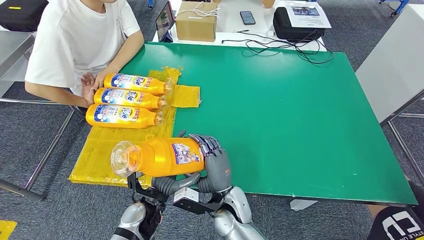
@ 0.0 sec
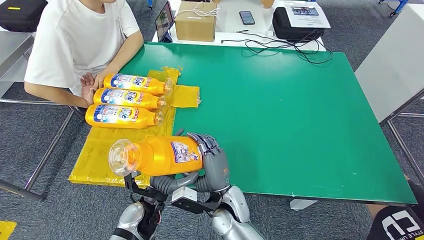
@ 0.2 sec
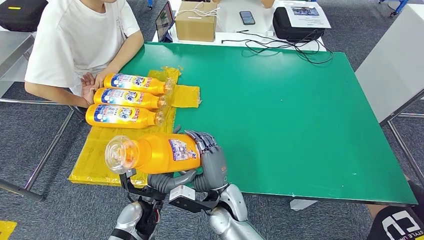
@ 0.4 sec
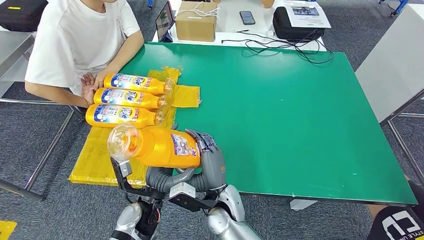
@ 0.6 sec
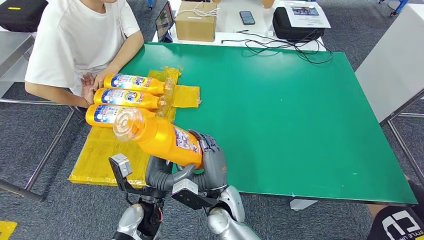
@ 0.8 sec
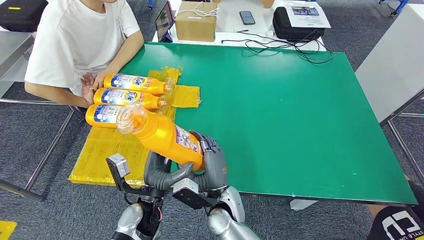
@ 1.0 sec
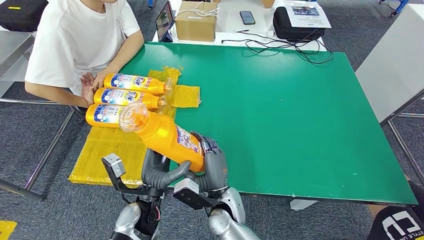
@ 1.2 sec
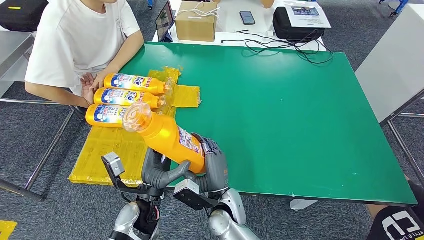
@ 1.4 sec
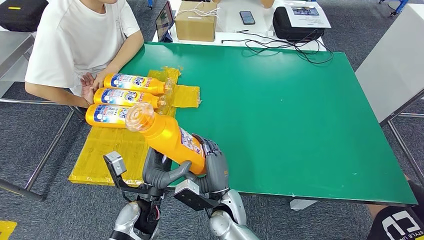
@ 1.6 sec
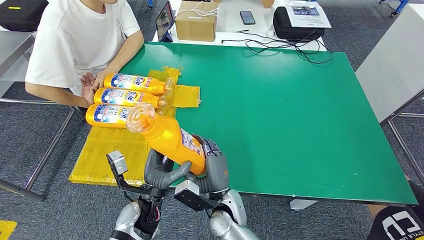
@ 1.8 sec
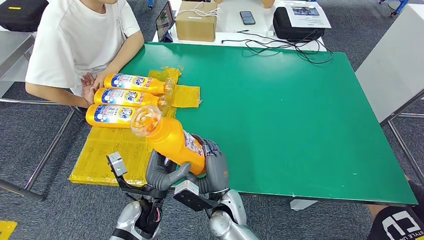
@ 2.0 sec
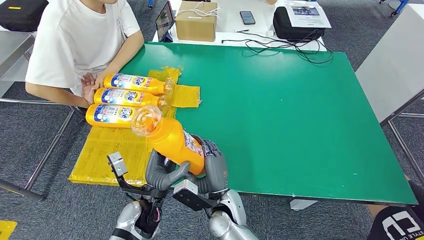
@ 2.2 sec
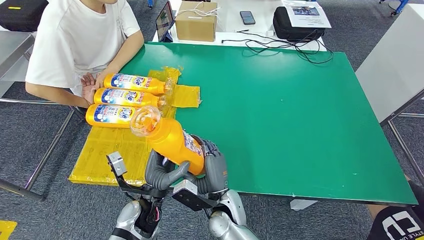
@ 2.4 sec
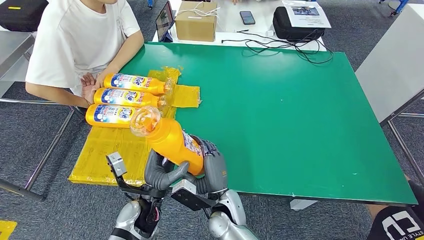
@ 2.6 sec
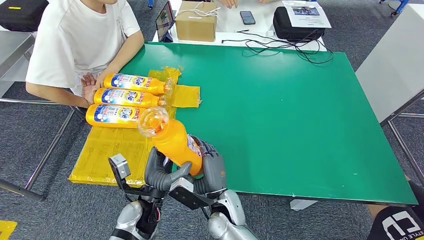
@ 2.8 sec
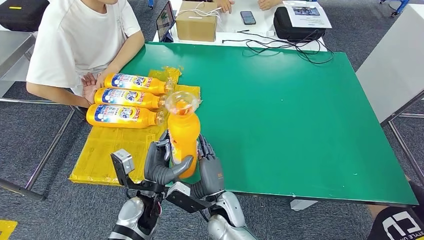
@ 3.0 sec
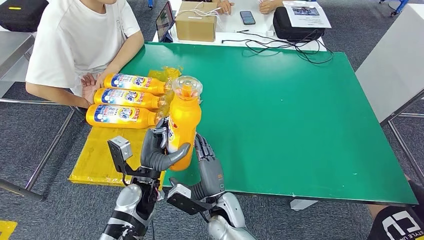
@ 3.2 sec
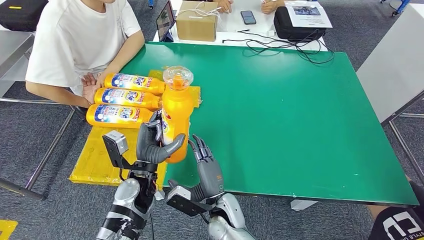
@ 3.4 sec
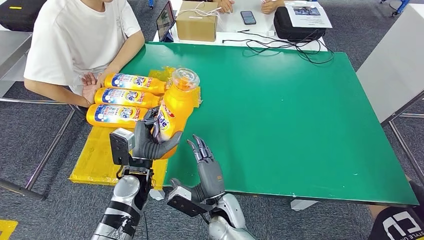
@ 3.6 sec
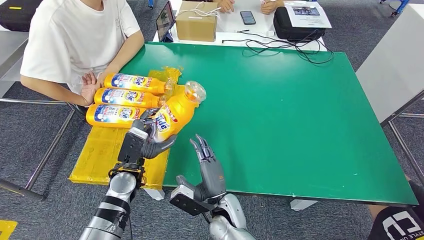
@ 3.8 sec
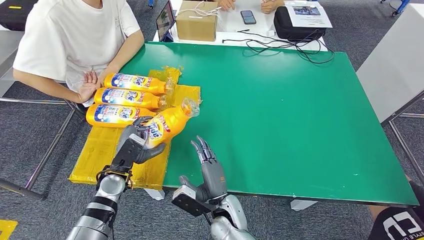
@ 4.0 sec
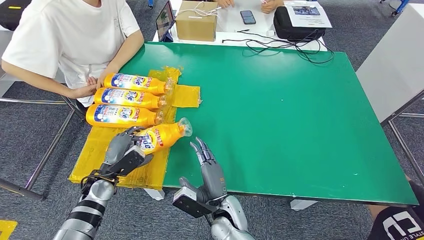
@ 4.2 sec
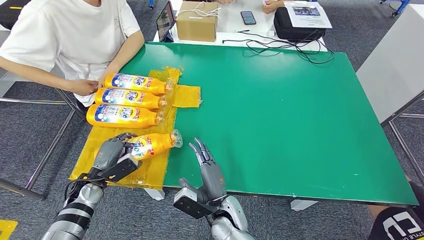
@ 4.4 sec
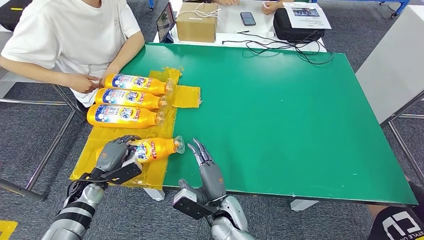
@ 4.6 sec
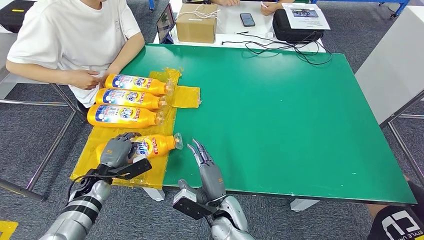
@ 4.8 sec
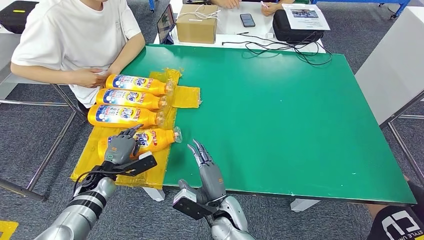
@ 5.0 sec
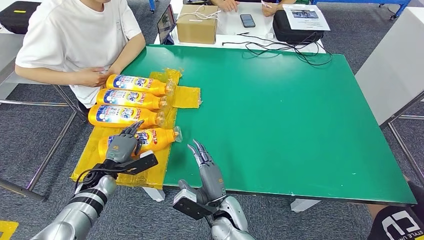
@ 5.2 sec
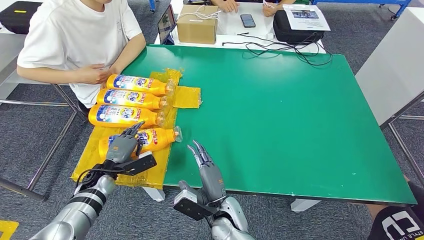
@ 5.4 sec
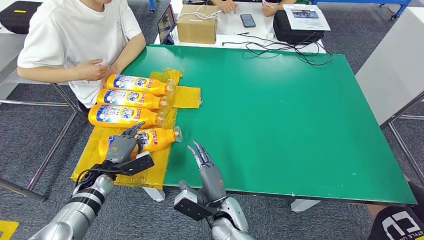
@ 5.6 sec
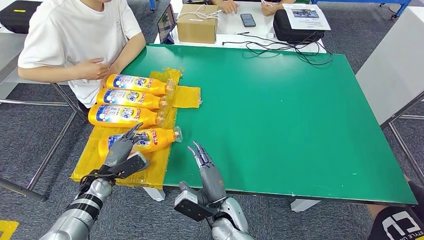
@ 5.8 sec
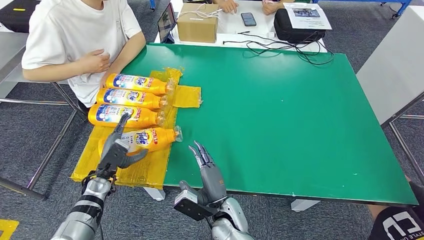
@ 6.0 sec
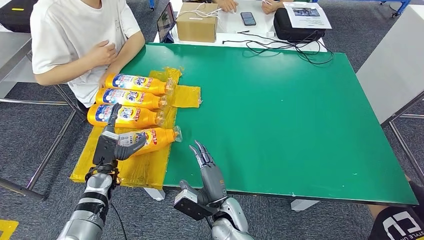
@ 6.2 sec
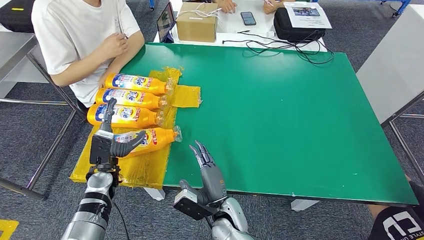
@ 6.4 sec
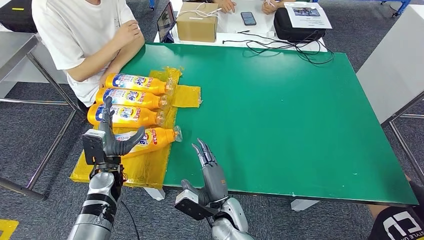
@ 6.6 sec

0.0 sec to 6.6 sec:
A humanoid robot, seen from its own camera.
Step, 0.0 sec to 6.6 sec: Flip the fast-moving consumer goods bottle to the front side.
0.0 sec to 3.2 sec: The hands move only a little.

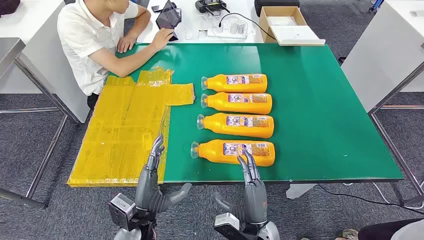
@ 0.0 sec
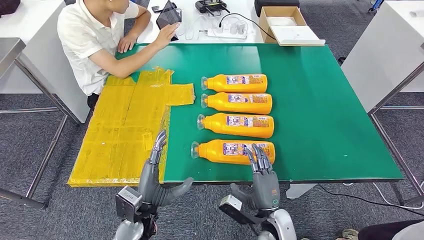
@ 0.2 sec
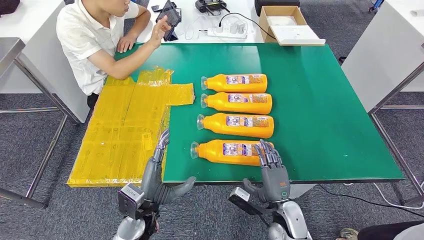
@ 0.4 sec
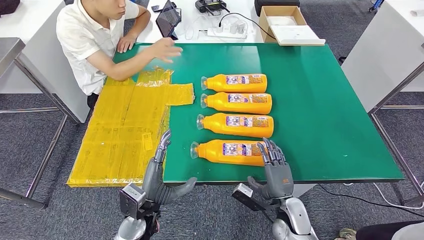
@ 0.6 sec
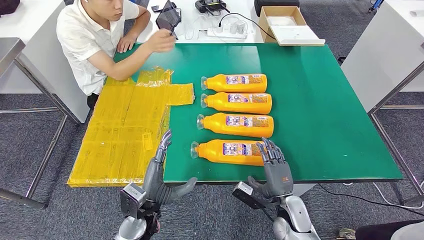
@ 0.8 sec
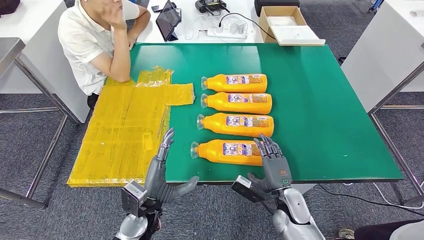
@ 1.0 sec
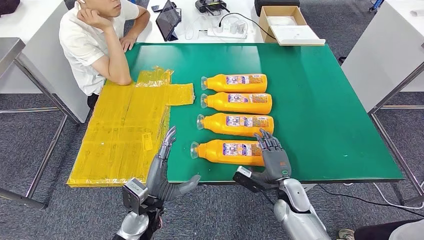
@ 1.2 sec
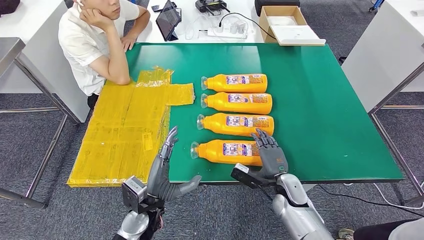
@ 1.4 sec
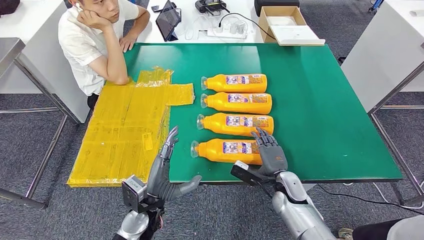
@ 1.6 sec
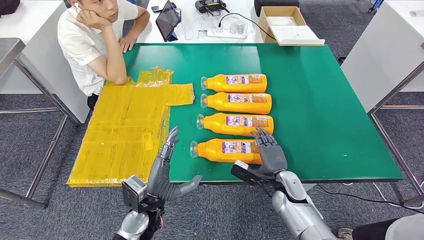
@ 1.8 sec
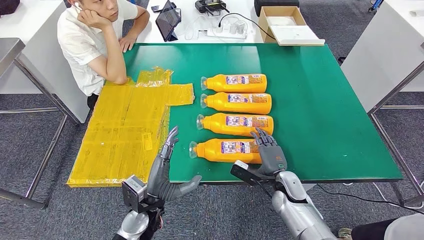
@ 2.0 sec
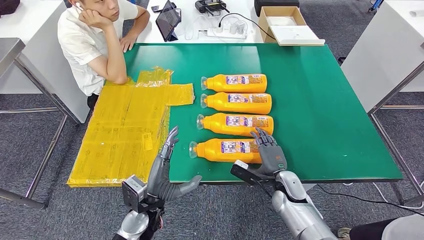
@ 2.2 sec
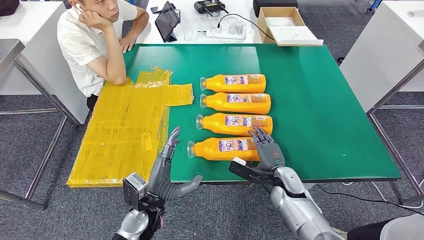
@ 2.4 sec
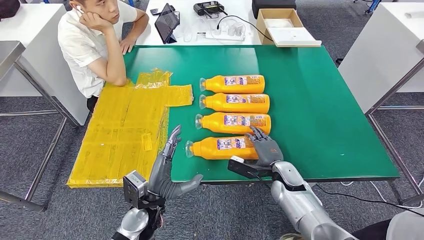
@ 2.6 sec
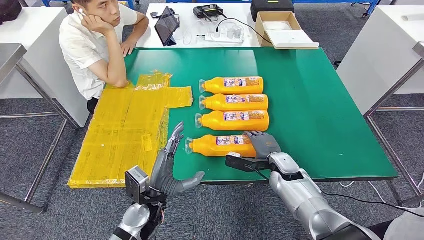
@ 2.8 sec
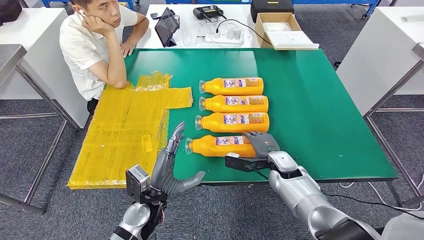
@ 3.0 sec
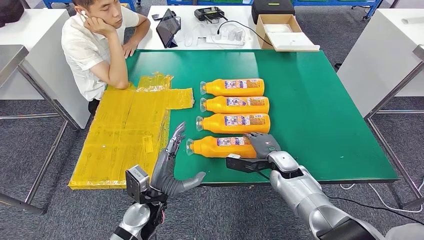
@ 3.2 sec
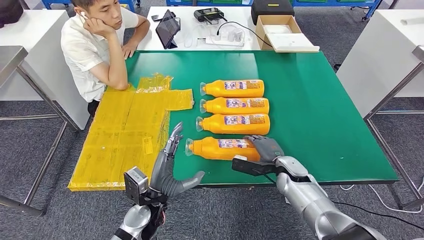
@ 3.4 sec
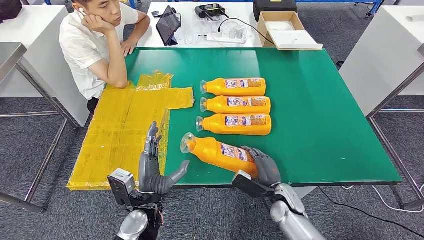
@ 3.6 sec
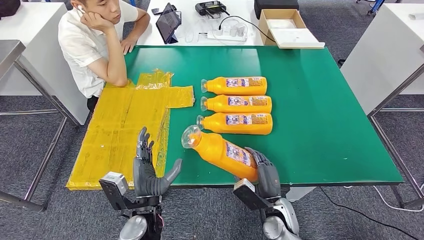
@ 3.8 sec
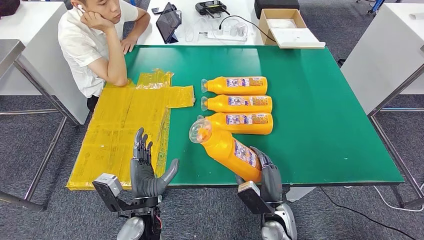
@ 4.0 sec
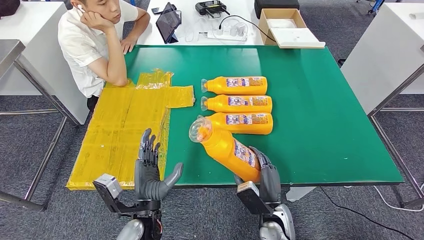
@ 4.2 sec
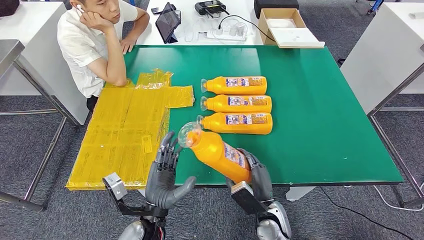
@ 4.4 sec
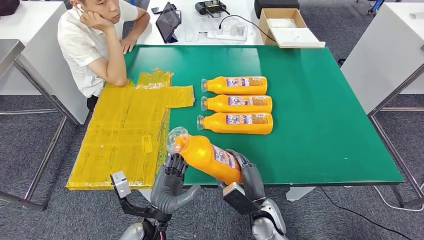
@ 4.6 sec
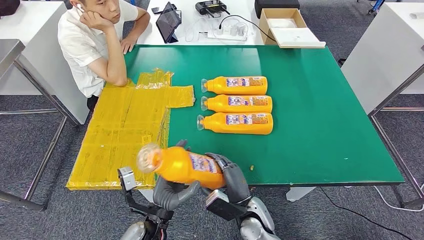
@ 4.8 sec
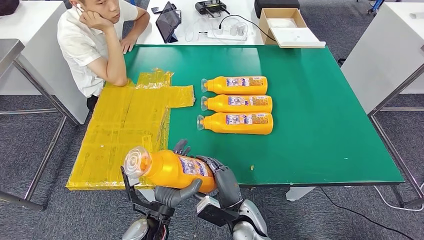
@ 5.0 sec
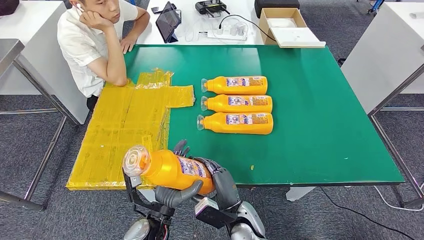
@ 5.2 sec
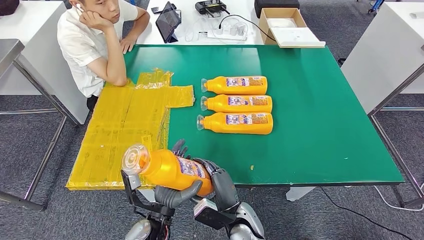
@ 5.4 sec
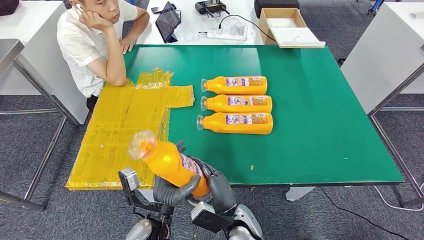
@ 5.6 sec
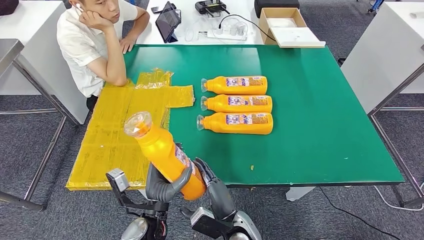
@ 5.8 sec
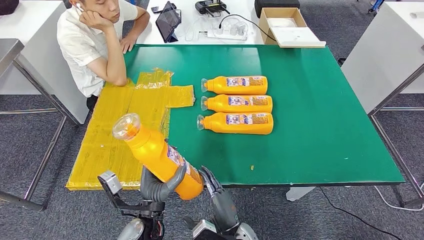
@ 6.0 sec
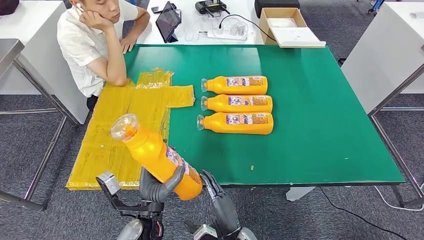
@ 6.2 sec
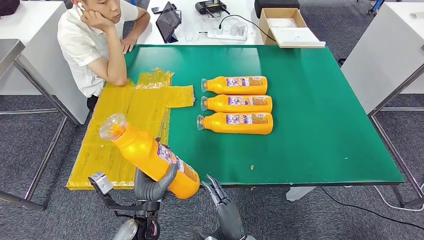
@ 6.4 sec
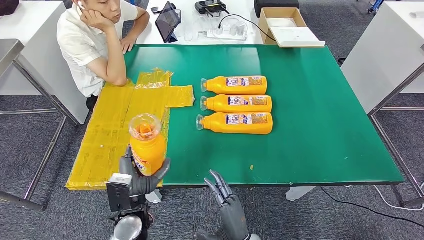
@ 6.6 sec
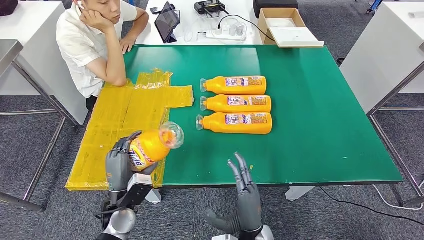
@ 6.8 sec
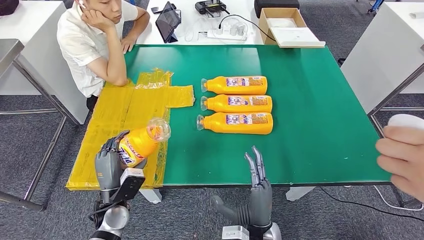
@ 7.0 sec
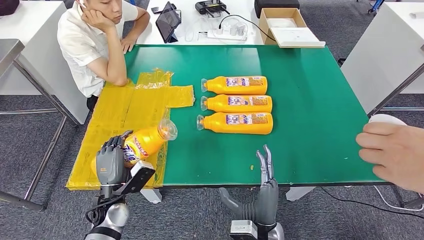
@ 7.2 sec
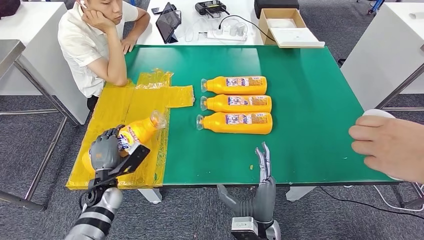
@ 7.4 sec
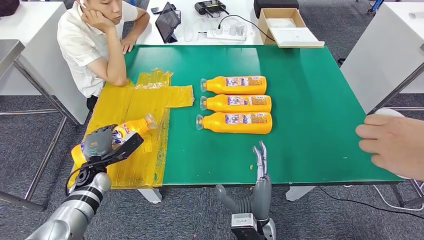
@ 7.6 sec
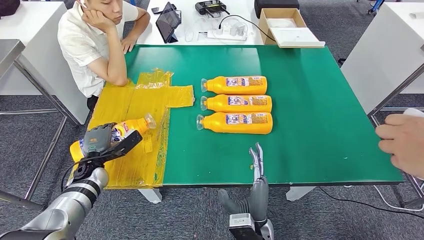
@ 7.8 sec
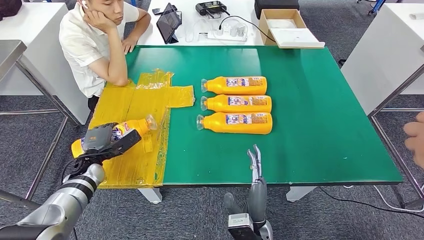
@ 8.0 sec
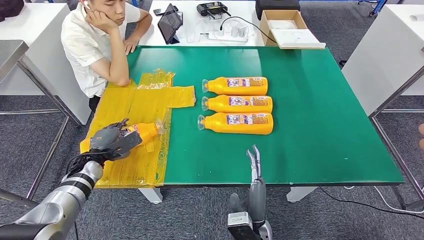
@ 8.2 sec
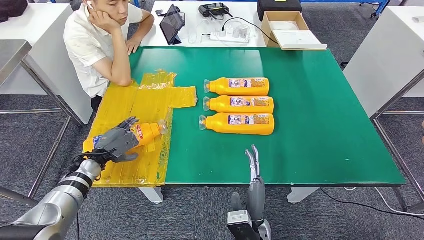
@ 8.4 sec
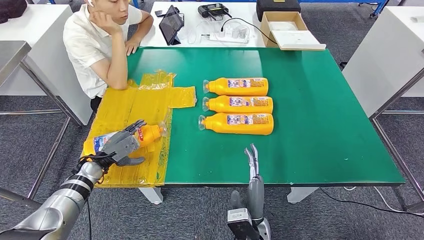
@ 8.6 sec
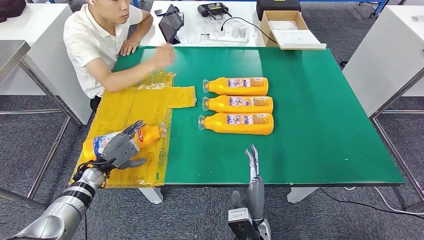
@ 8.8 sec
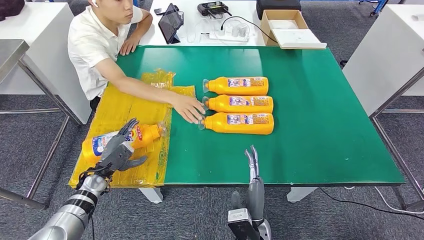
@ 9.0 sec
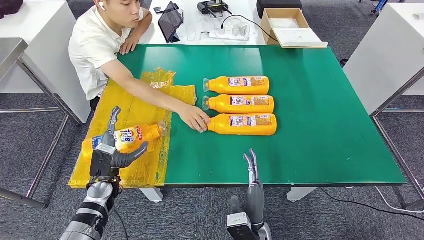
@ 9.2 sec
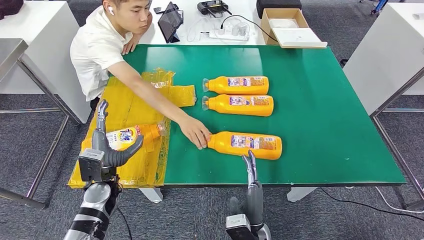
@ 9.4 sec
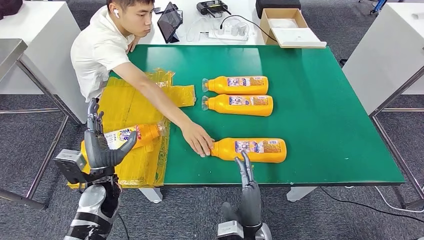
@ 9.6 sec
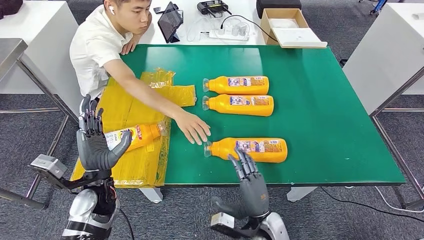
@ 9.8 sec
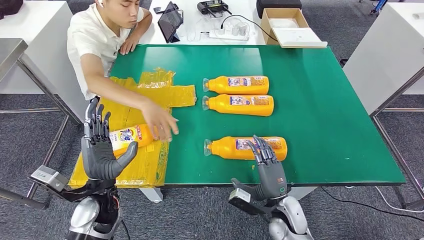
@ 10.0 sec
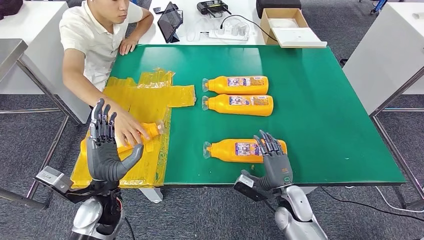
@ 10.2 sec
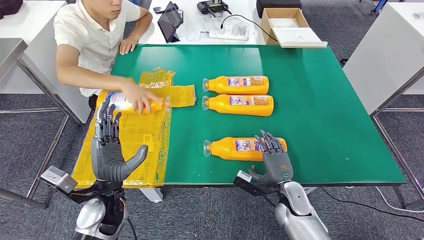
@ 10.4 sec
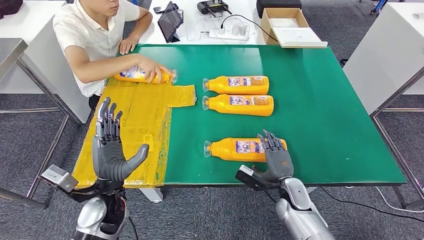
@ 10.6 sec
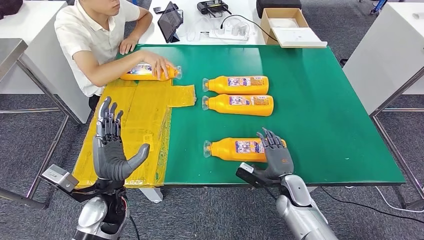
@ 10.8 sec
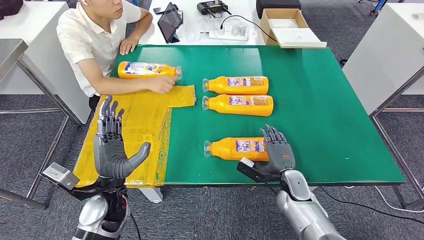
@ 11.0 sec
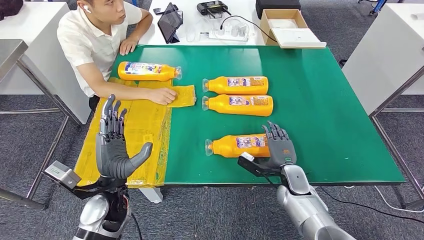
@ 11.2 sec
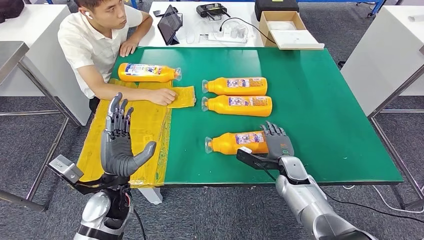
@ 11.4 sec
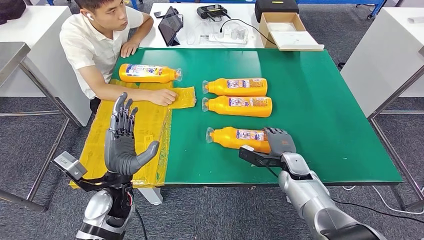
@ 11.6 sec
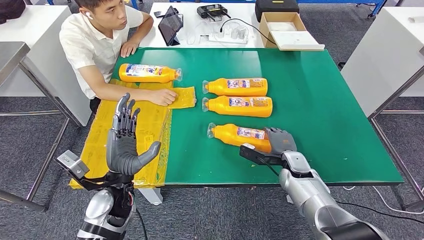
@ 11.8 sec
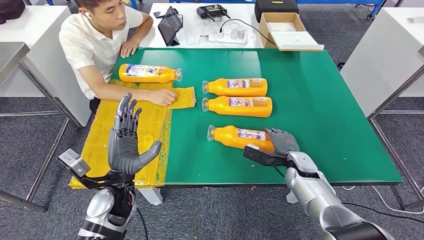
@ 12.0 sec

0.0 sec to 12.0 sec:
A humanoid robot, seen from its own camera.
Step, 0.0 sec to 5.8 sec: Take the fast-moving consumer goods bottle from the table.
Step, 6.2 sec to 8.6 sec: Flip the fast-moving consumer goods bottle to the front side.
4.4 sec to 6.0 sec: The right hand travels to the left and backward by roughly 10 cm.
